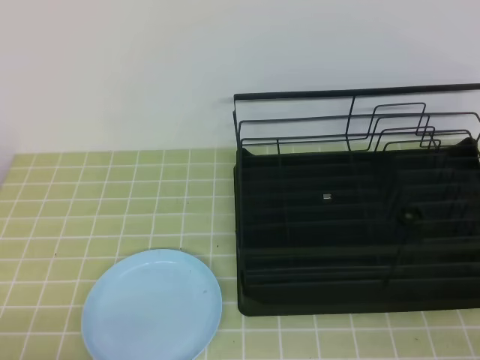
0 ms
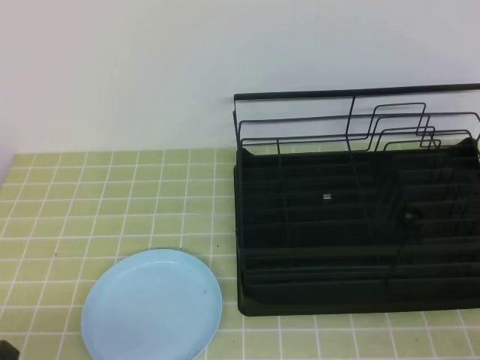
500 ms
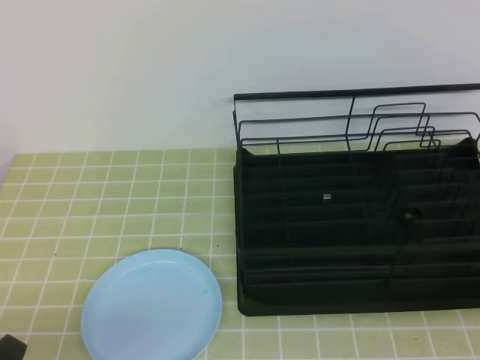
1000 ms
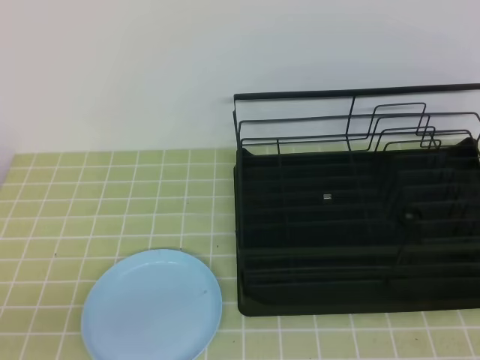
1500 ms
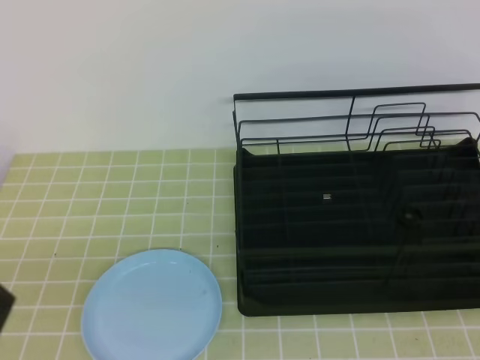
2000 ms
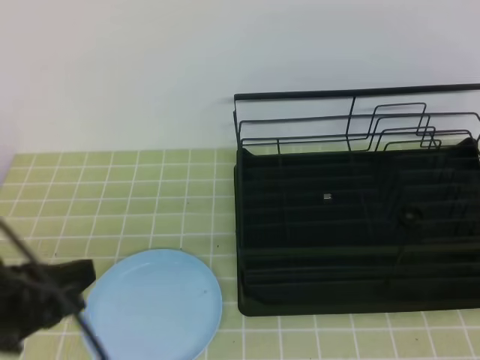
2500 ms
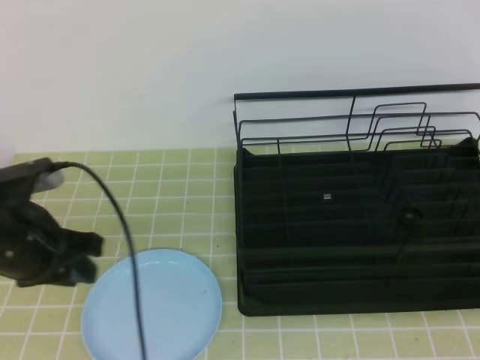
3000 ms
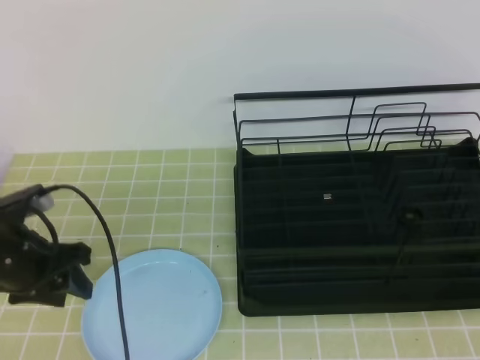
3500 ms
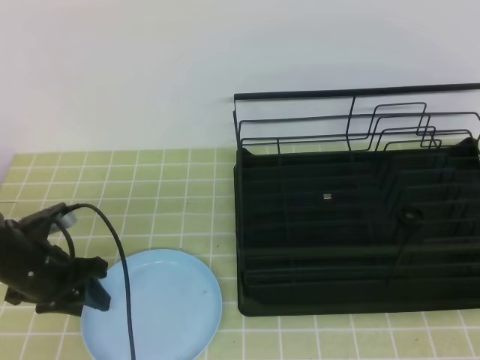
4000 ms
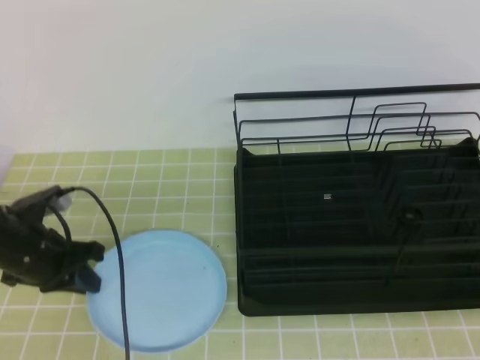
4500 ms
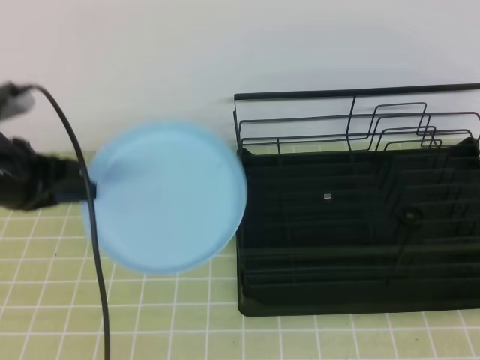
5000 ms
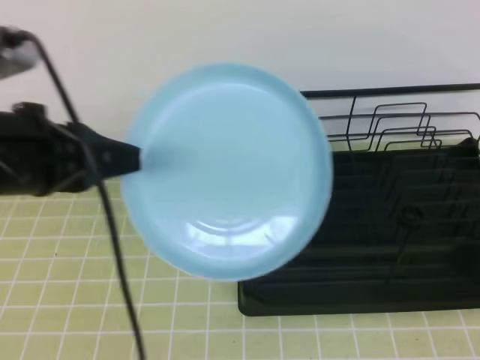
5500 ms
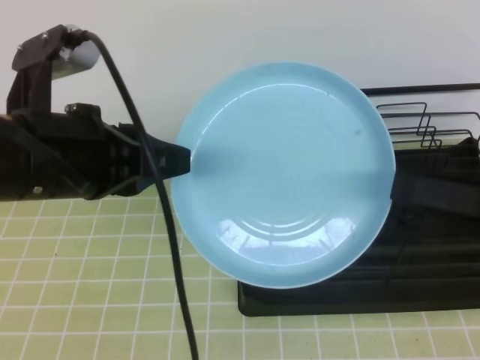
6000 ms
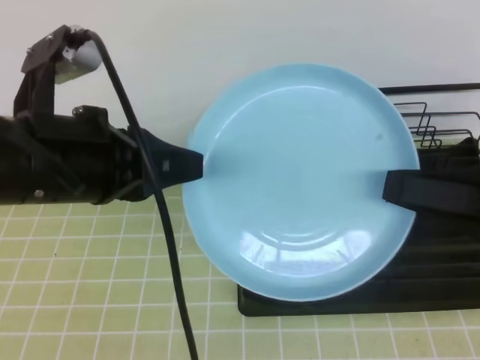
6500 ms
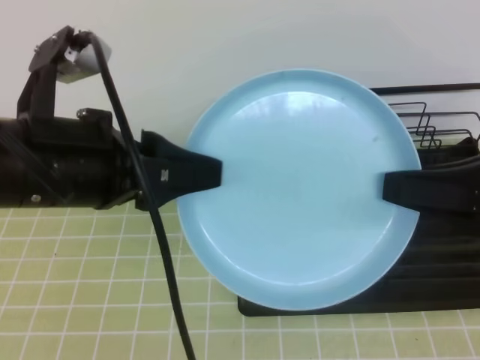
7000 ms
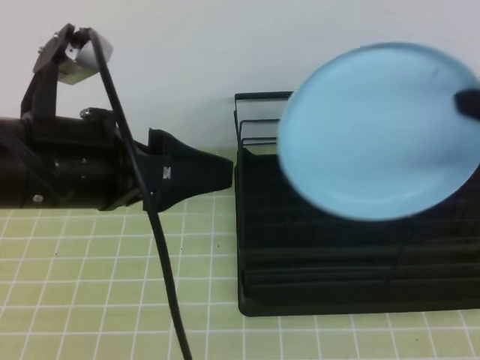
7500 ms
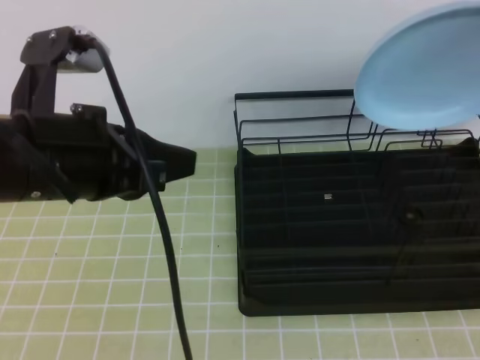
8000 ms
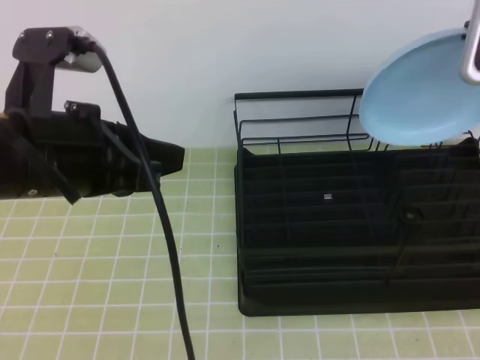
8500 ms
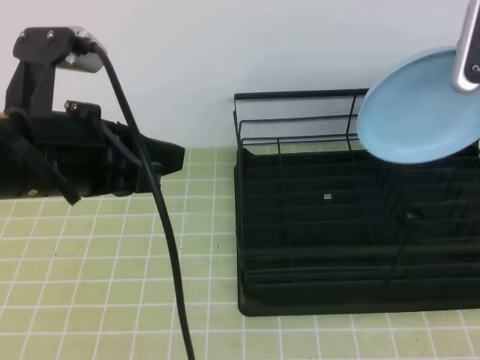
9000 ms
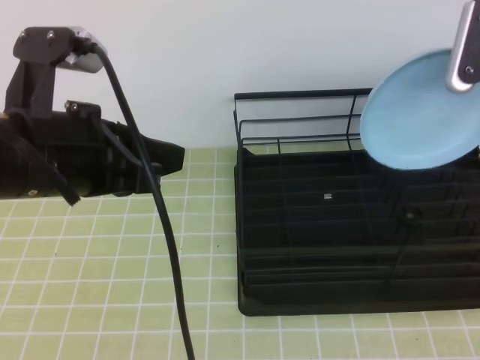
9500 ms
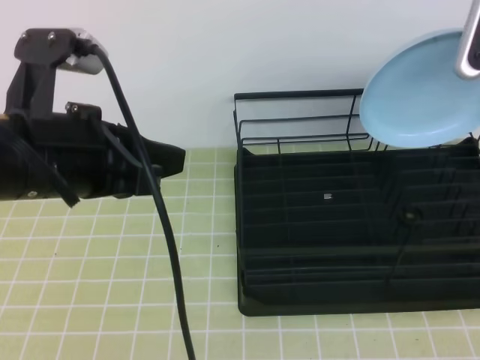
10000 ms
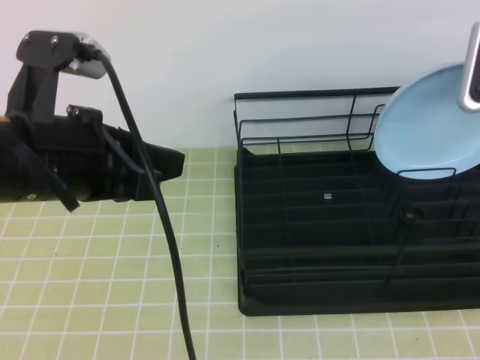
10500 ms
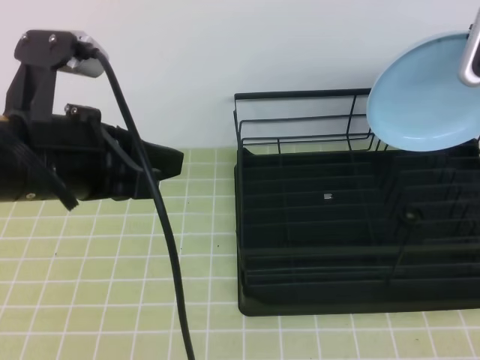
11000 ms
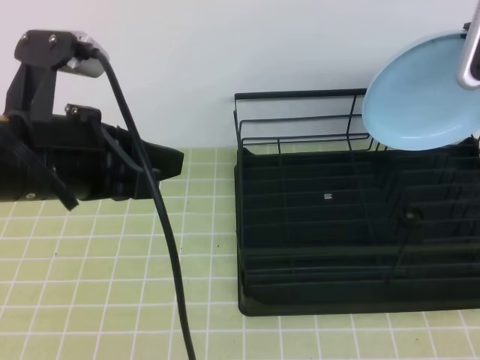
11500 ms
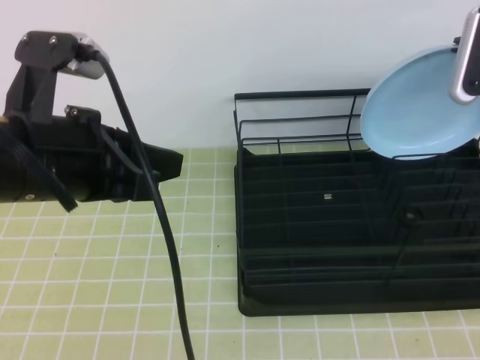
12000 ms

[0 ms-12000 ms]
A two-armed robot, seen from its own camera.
Step, 0 ms to 3500 ms: Left grab the blue plate.
Step, 4000 ms to 5500 ms: Right receive the plate.
Step, 6000 ms to 11500 ms: Right place it at the back of the shelf.
0 ms to 2000 ms: The left gripper goes about 10 cm upward.
2000 ms to 4000 ms: The left gripper travels forward and downward by about 30 cm, and opens.
4000 ms to 6000 ms: The right gripper goes about 10 cm forward, and opens, while the left gripper moves upward and to the right, approximately 25 cm, and closes.
6000 ms to 8000 ms: The left gripper opens, then closes once more. The right gripper shifts some 15 cm forward and upward, and closes.
8000 ms to 10000 ms: The right gripper travels forward by about 5 cm.
10000 ms to 12000 ms: The grippers stay close to where they were, moving slightly.

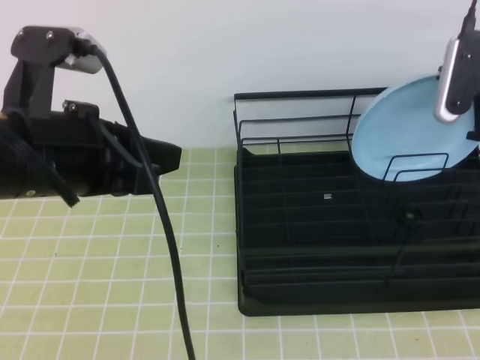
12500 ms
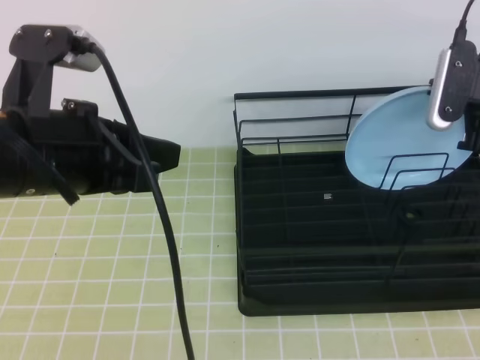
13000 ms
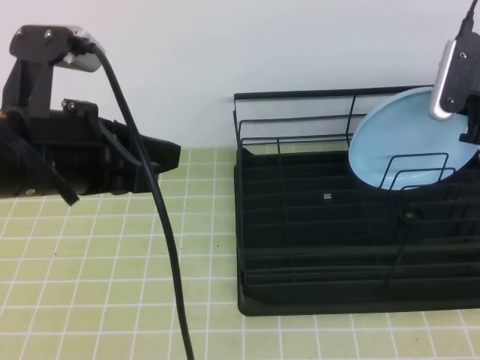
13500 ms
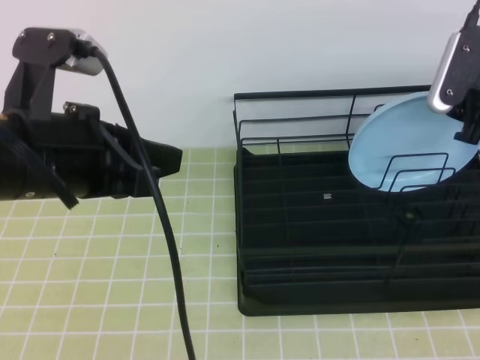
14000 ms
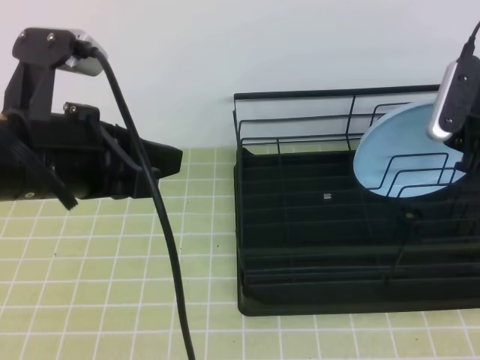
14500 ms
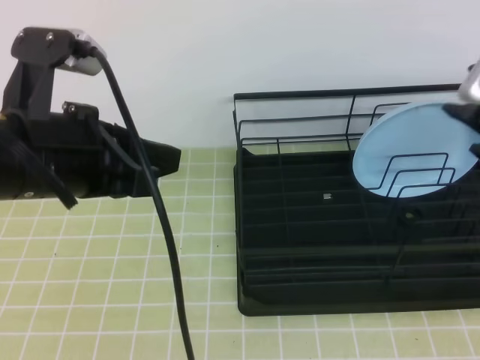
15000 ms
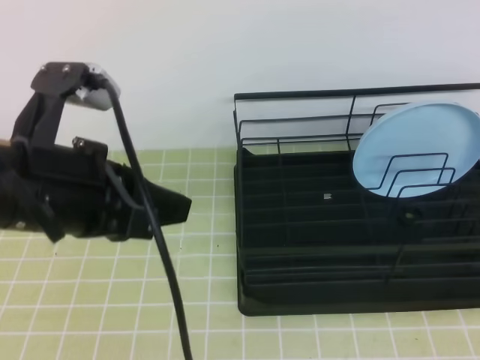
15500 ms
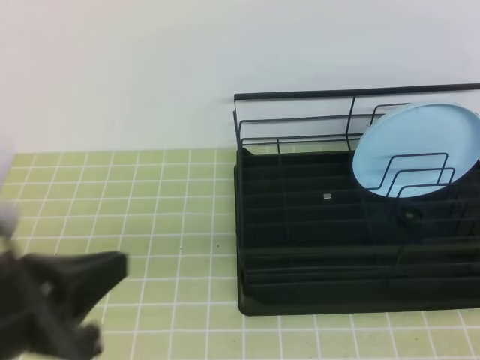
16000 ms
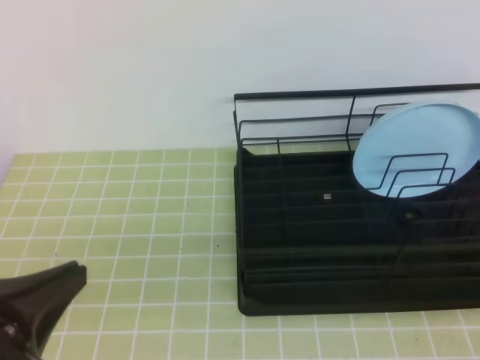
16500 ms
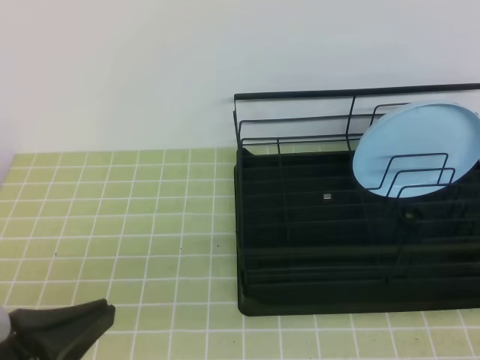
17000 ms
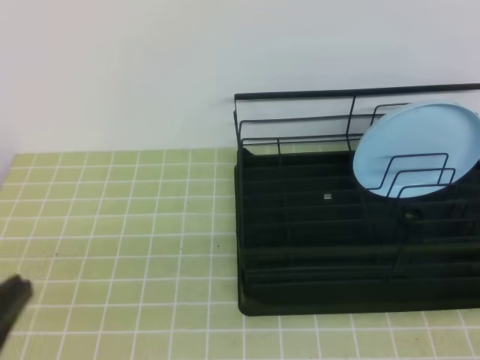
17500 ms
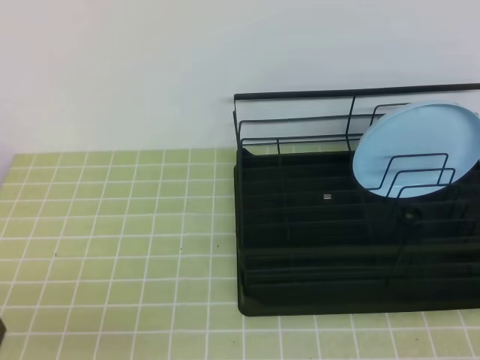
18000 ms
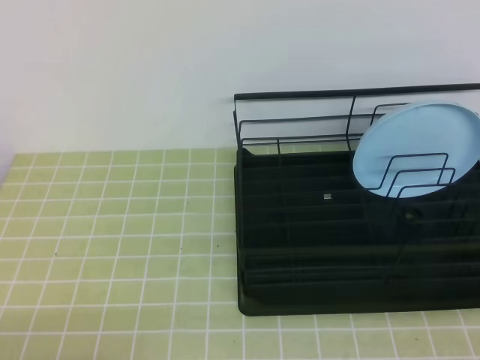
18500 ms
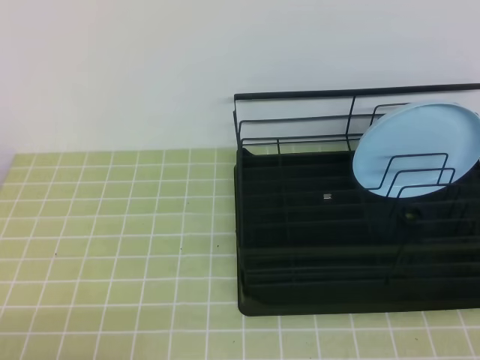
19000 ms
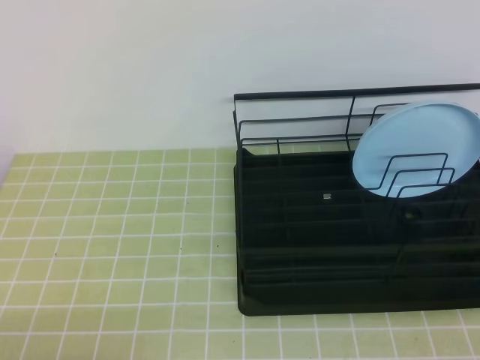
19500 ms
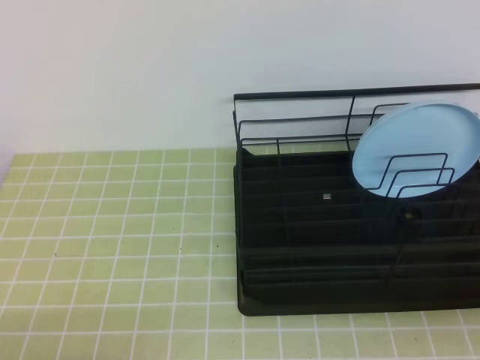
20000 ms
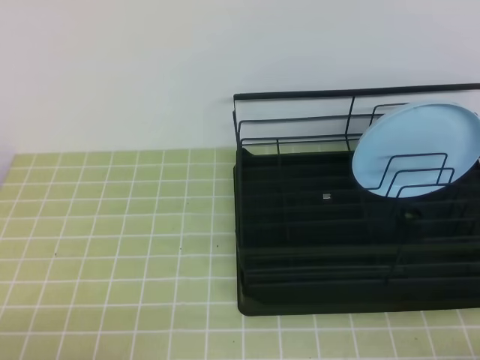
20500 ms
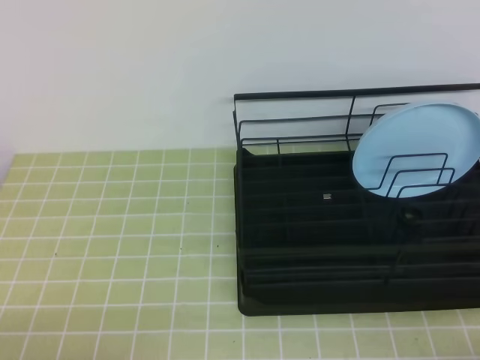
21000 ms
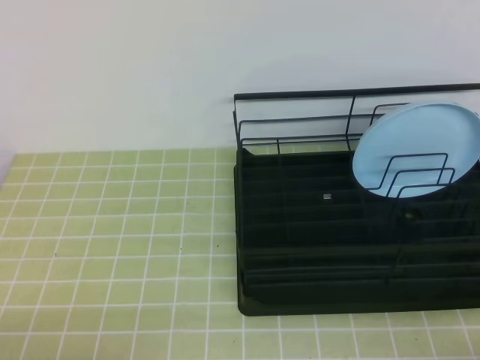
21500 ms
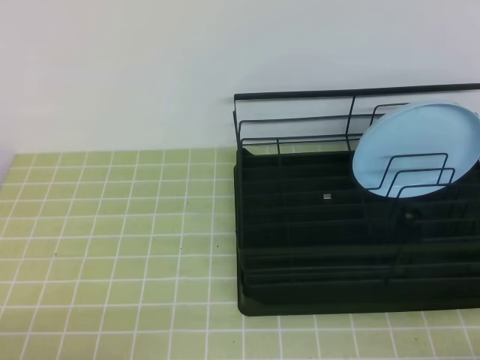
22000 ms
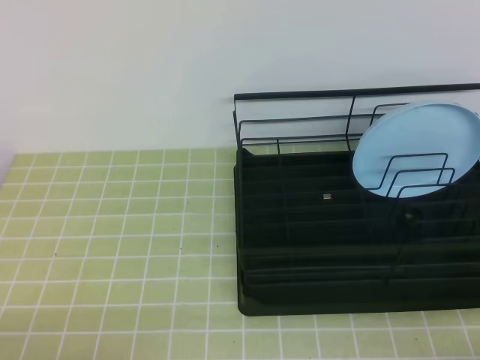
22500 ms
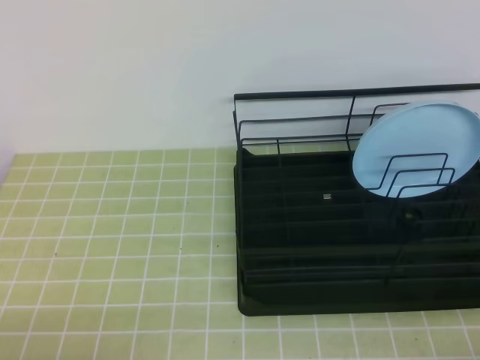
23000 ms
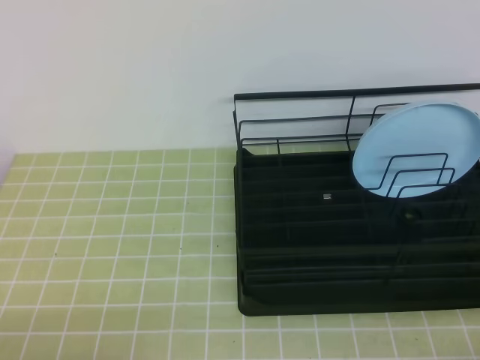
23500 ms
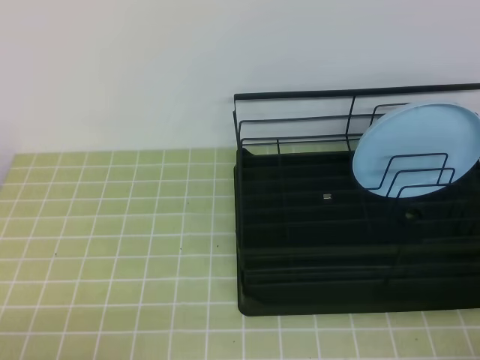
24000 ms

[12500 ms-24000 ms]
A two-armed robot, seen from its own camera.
12500 ms to 14500 ms: The right gripper opens its fingers.
14500 ms to 16500 ms: The left gripper is displaced backward, downward and to the left by about 15 cm; the right gripper shifts approximately 30 cm backward, and closes.
16500 ms to 18500 ms: The left gripper is displaced downward and backward by about 10 cm.
22000 ms to 24000 ms: Both grippers stay put.
